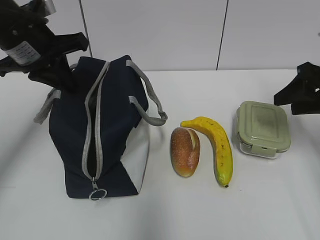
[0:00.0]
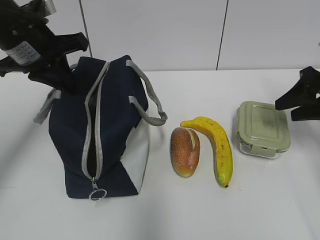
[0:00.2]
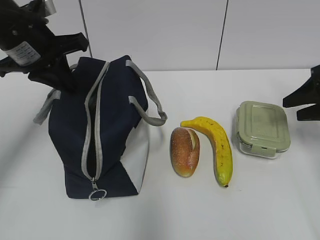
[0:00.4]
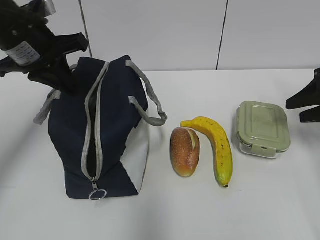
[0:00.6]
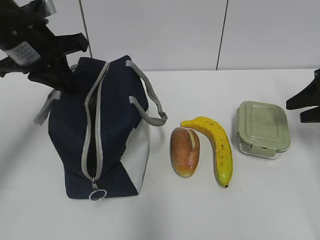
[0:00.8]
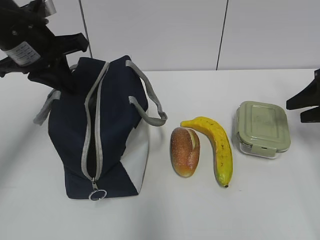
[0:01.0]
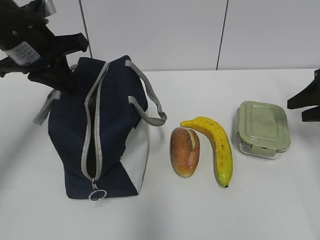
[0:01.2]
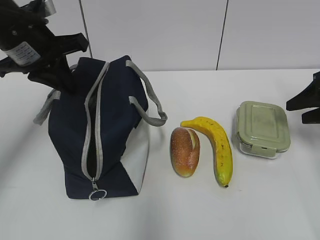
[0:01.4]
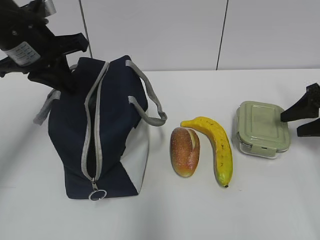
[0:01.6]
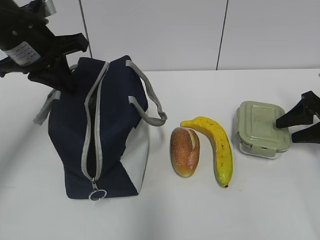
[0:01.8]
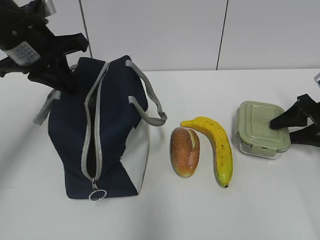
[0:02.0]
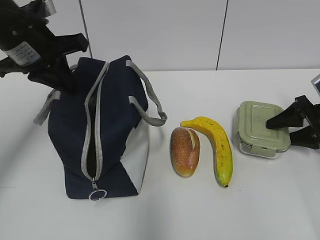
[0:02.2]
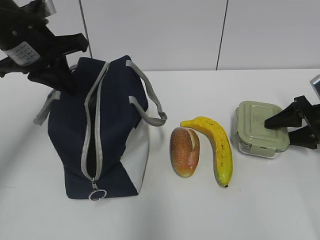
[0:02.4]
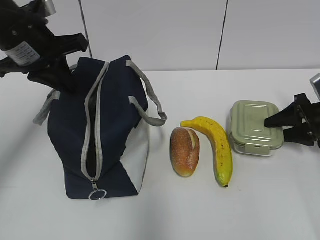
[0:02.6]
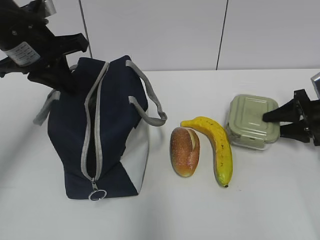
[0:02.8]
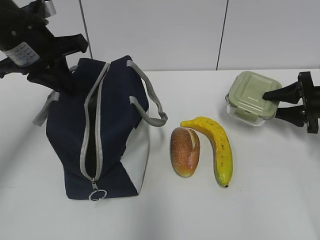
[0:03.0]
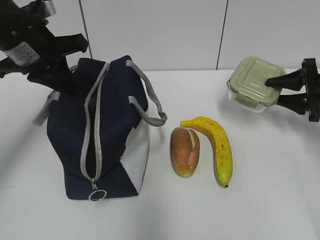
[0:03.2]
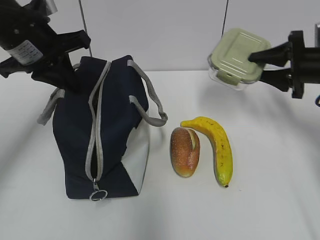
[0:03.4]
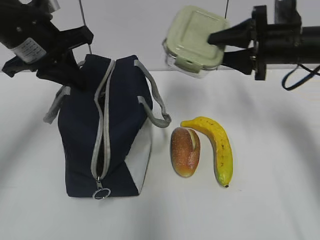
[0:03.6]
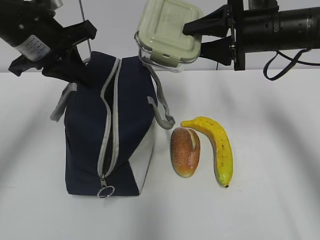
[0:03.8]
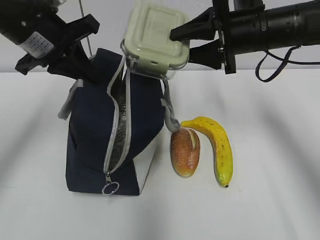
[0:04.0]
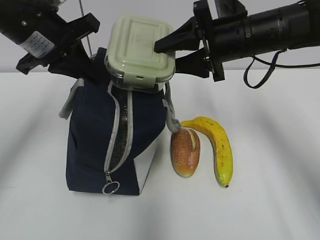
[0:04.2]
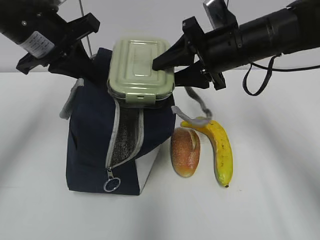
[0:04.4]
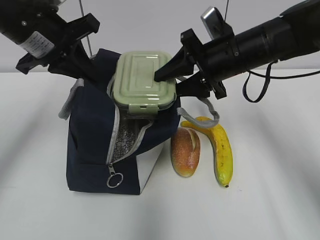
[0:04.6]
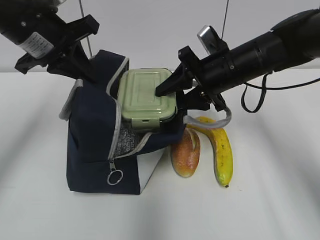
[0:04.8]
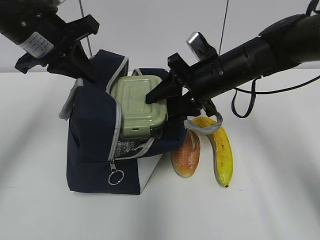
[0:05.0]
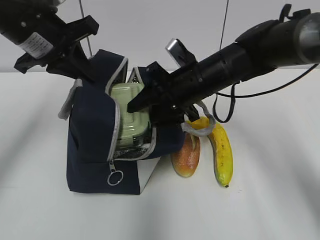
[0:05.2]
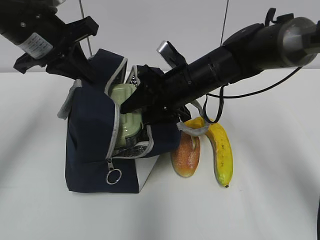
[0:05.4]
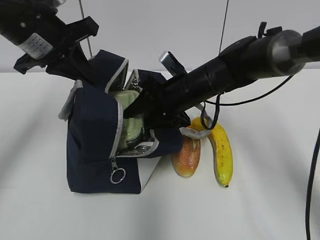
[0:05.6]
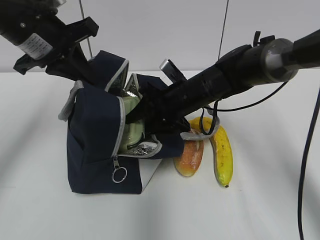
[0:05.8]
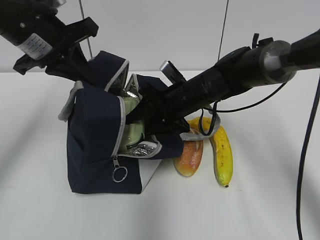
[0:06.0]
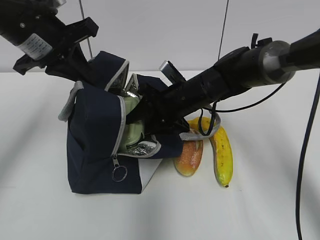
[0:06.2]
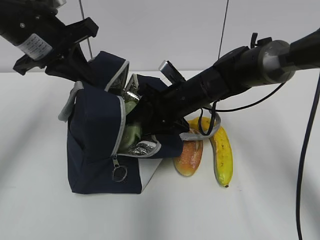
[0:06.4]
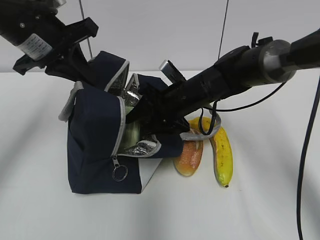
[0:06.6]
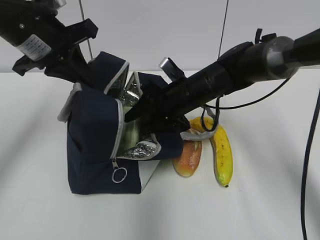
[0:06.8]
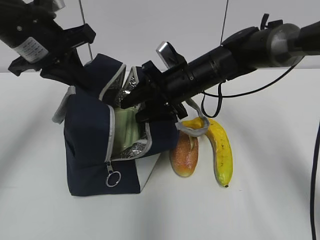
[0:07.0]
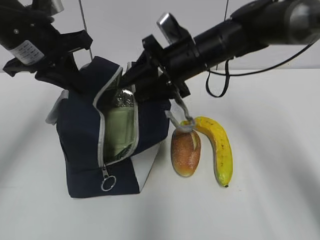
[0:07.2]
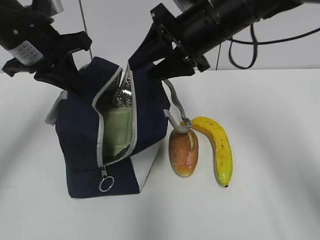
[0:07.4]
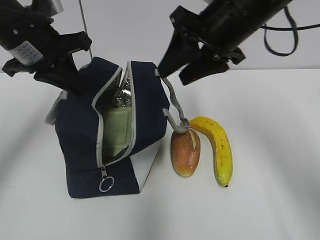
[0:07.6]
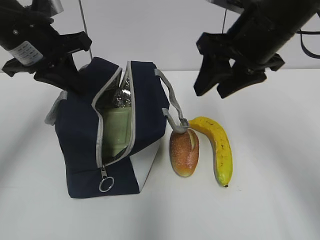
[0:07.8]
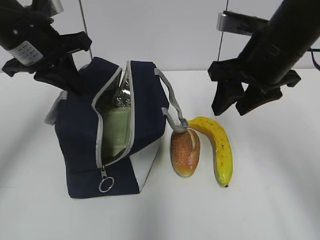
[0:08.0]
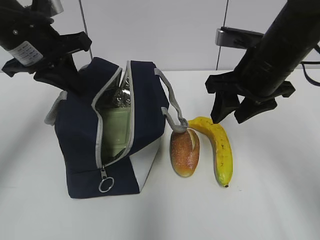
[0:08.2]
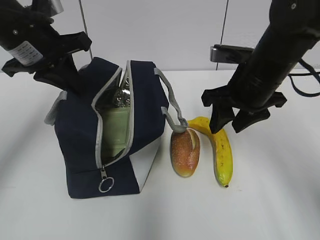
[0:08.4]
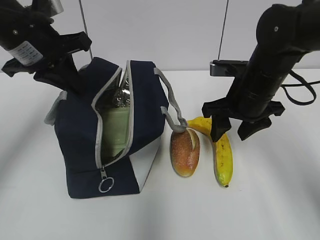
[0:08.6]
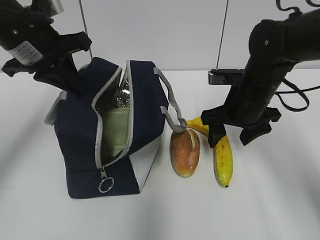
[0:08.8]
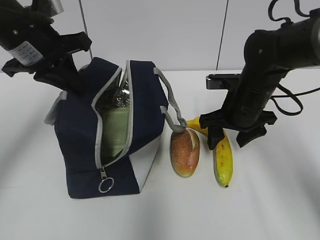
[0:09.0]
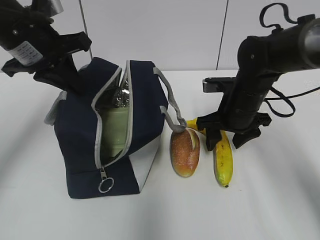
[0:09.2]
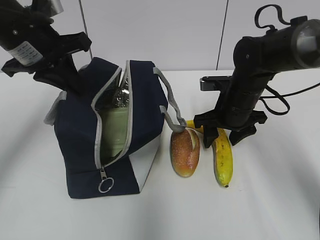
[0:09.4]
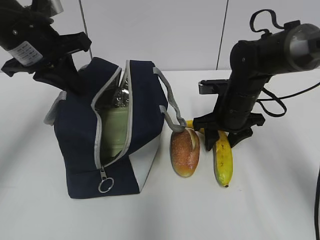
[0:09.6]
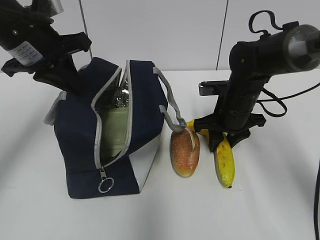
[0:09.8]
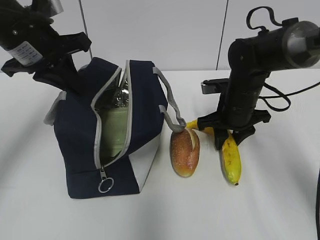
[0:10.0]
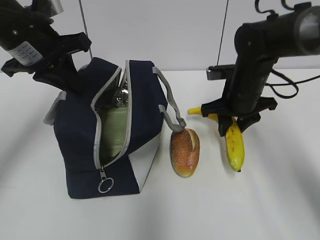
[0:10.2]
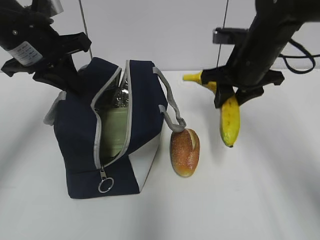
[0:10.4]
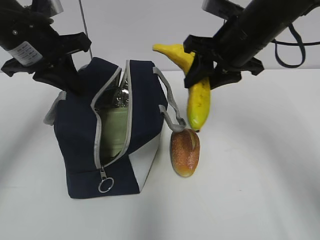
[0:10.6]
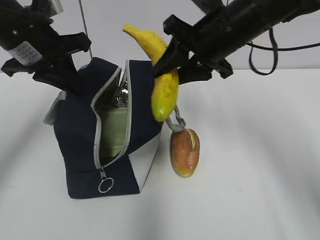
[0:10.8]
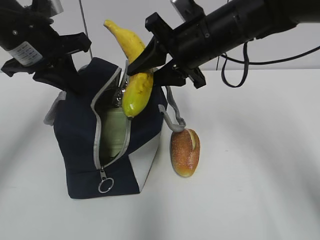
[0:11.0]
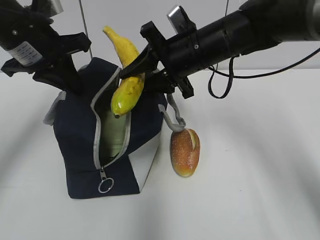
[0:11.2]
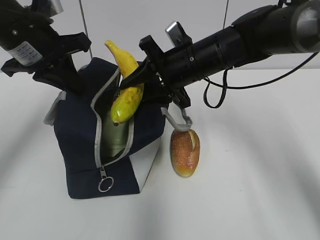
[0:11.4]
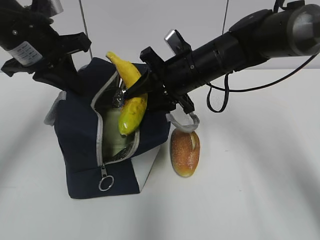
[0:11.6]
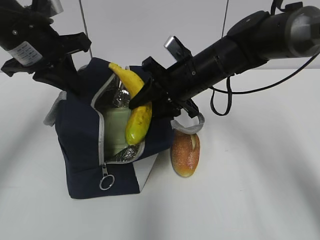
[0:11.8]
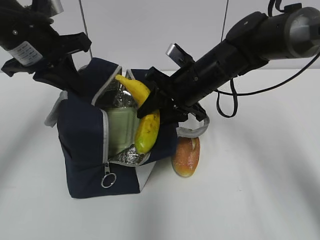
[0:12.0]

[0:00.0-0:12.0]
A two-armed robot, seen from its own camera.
0:00.0 to 0:01.6: The right gripper is displaced downward and to the right by roughly 10 cm.
0:01.6 to 0:03.0: The right gripper changes place by about 5 cm.
0:03.0 to 0:04.4: The right gripper shifts some 25 cm to the left and upward.
0:04.4 to 0:06.0: The right gripper is displaced downward and to the left by some 15 cm.
0:06.0 to 0:07.6: The right gripper is displaced upward by roughly 15 cm.
0:07.6 to 0:09.0: The right gripper shifts roughly 15 cm downward.
0:09.0 to 0:10.4: The right gripper shifts roughly 5 cm upward, and closes up.
0:10.4 to 0:12.0: The right gripper heads to the left, covering approximately 10 cm.

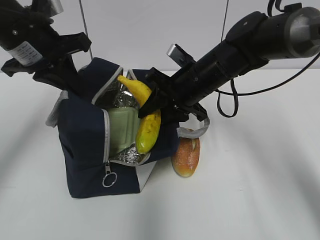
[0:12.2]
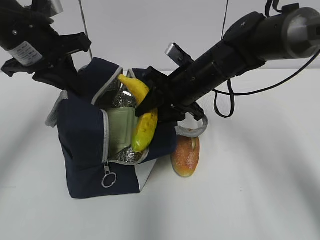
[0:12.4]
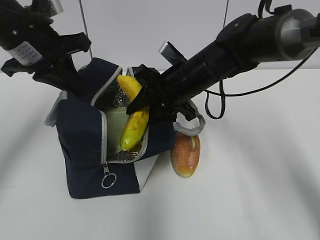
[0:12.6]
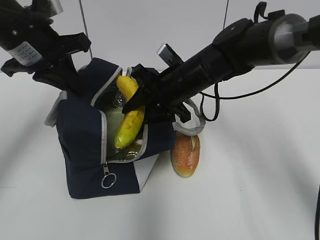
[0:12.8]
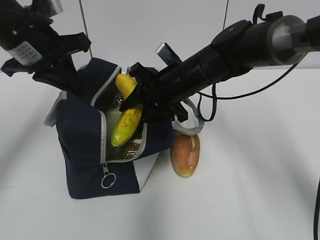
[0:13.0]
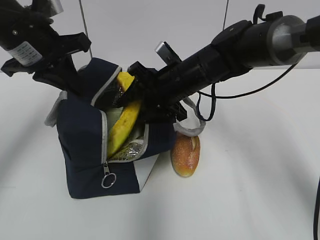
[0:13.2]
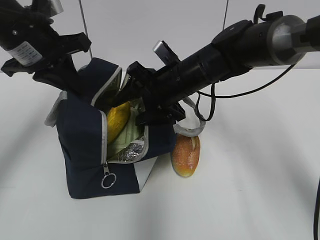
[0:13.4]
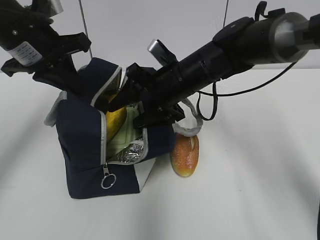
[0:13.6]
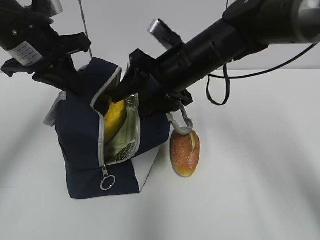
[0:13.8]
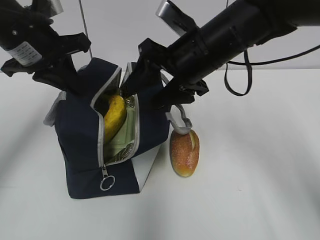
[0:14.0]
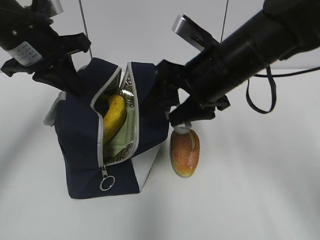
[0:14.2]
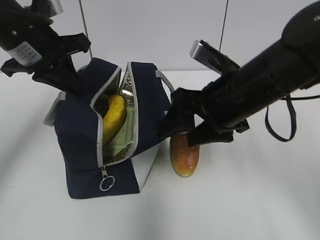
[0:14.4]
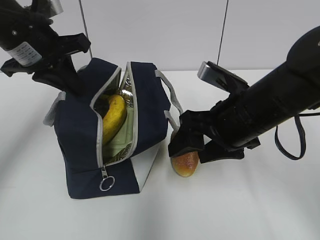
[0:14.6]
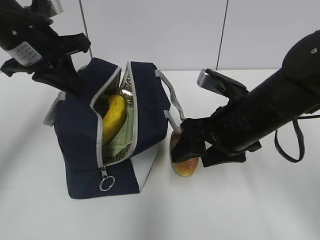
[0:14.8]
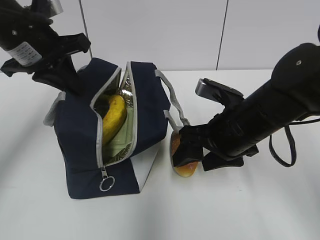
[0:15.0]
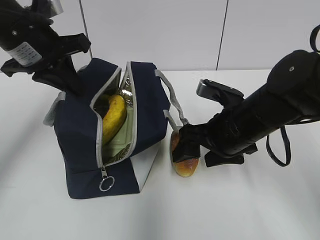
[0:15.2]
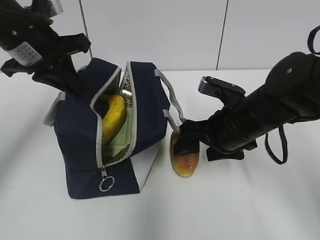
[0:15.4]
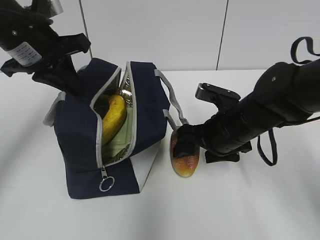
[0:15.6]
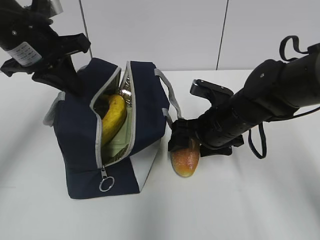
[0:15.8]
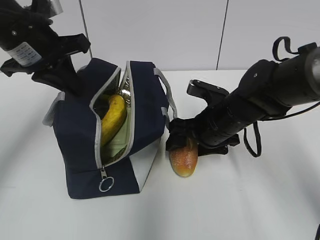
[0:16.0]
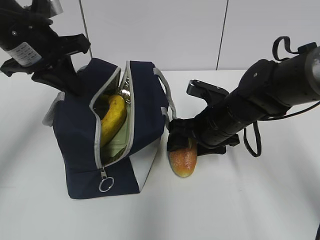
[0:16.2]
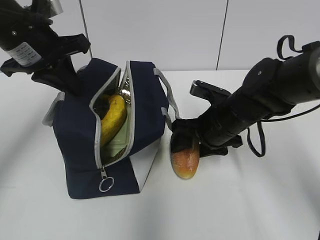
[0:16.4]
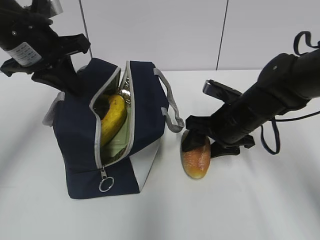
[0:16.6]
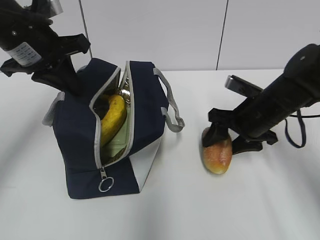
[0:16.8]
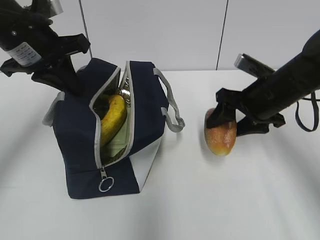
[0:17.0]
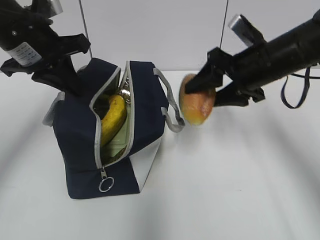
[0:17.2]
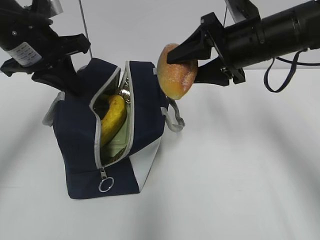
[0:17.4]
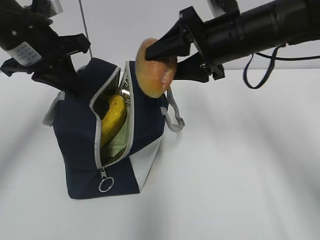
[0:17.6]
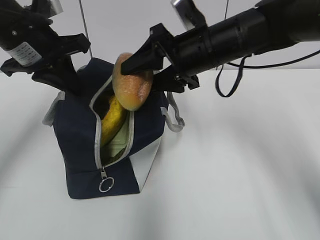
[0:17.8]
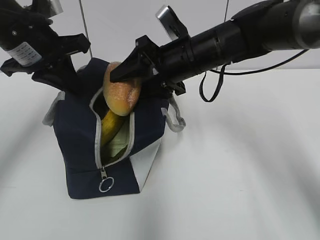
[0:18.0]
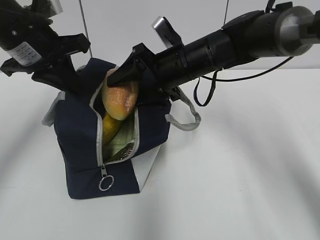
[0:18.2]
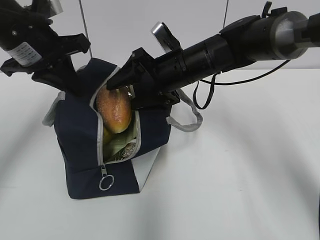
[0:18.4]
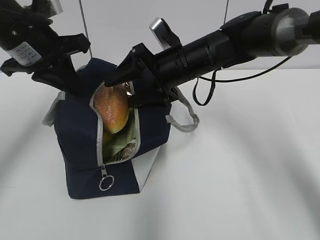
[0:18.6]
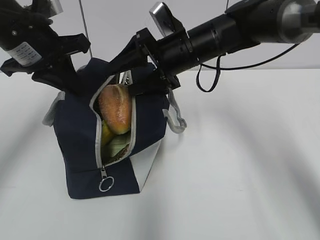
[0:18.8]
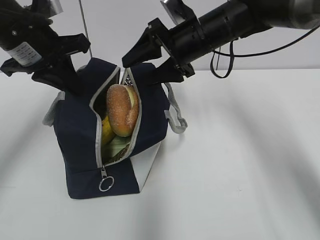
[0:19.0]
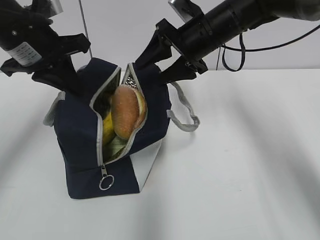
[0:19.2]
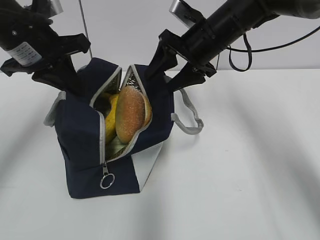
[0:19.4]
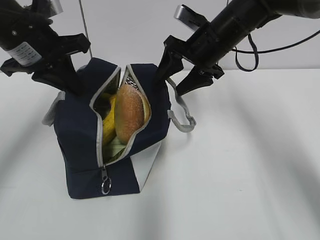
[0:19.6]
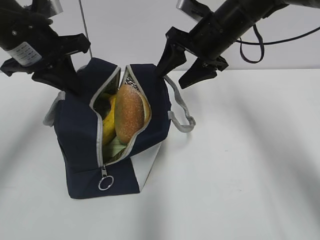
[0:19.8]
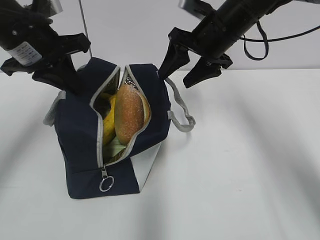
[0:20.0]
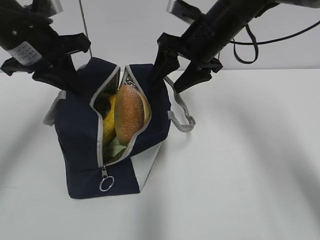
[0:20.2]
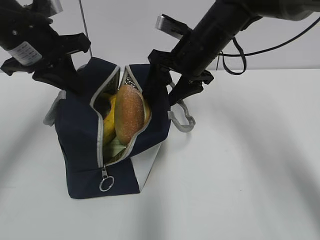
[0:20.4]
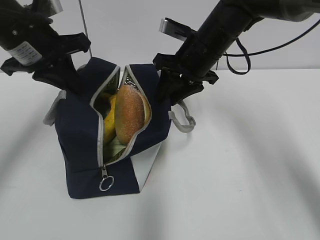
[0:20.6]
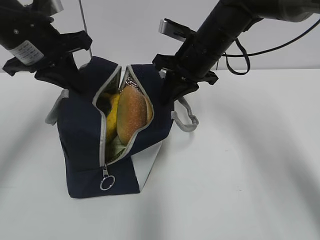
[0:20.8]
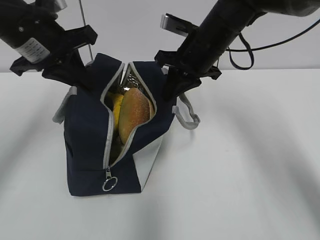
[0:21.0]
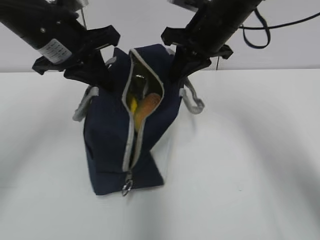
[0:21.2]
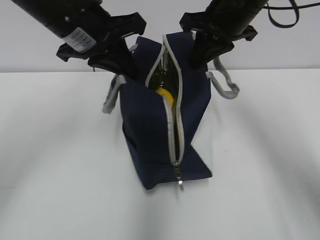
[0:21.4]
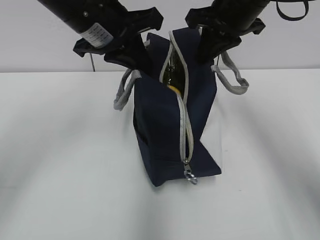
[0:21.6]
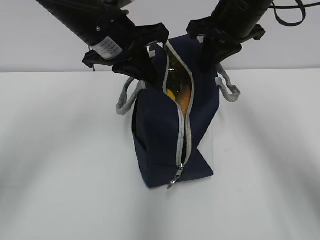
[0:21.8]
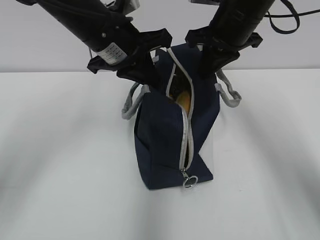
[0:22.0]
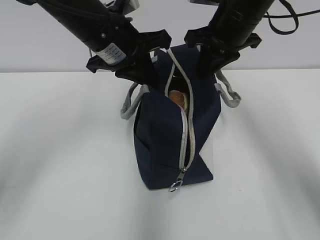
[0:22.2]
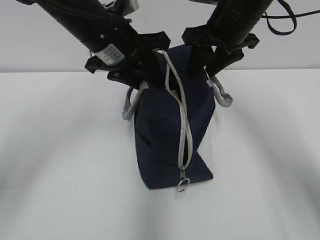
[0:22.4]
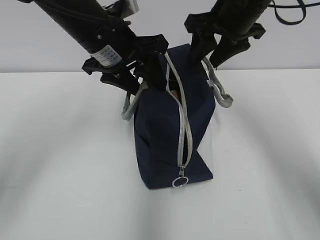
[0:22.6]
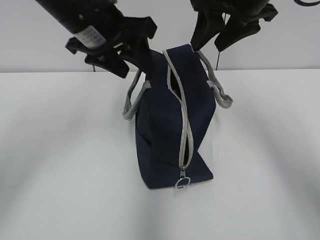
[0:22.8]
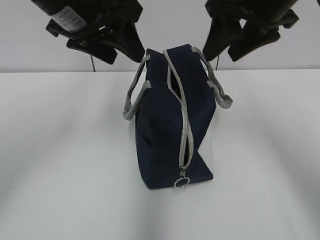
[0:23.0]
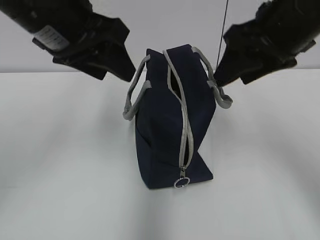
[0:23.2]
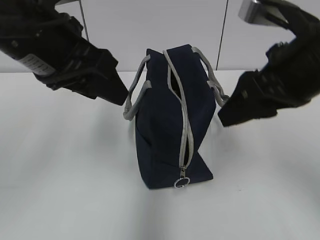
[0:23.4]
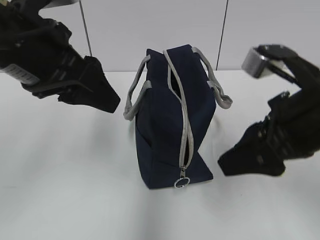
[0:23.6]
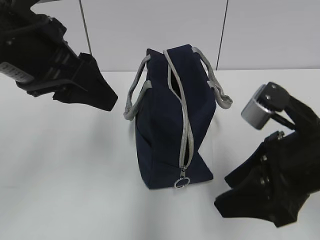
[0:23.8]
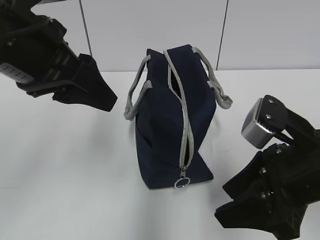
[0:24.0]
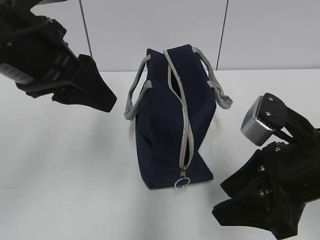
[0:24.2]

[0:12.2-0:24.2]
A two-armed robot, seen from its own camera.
0:12.2 to 0:13.8: The right gripper opens up.
0:13.8 to 0:15.2: The right gripper heads backward, to the right and downward, covering approximately 10 cm.
0:15.2 to 0:16.6: The right gripper travels forward by about 5 cm.
0:16.6 to 0:18.2: The right gripper is displaced to the left, upward and forward by approximately 15 cm.
0:18.2 to 0:19.8: The right gripper moves to the right, approximately 5 cm.
0:19.8 to 0:21.2: The right gripper closes its fingers.
0:21.2 to 0:22.6: The left gripper is displaced to the right by about 5 cm, and opens up. The right gripper opens.
0:22.6 to 0:24.2: The right gripper is displaced backward and downward by some 25 cm. The left gripper shifts approximately 15 cm backward and to the left.
